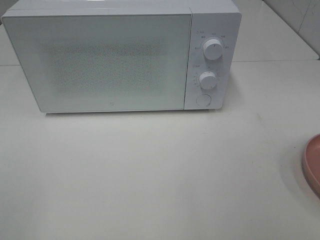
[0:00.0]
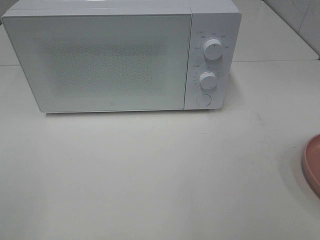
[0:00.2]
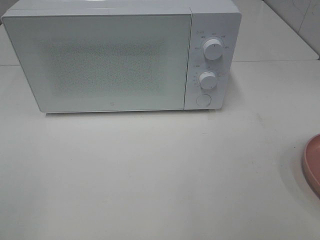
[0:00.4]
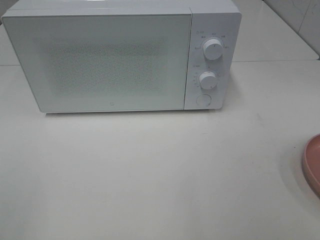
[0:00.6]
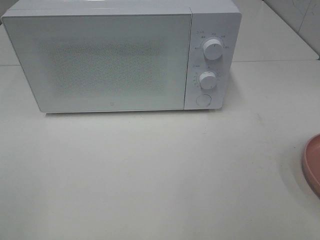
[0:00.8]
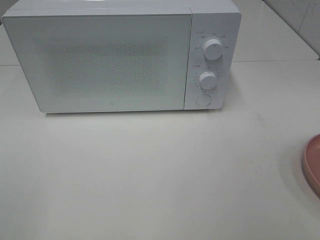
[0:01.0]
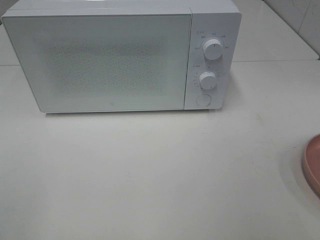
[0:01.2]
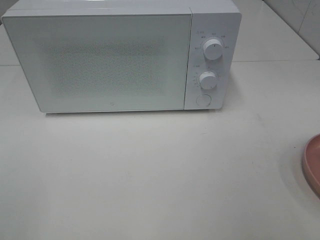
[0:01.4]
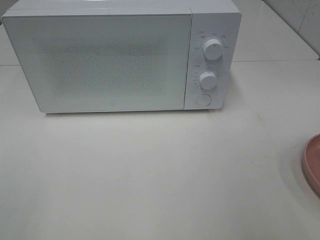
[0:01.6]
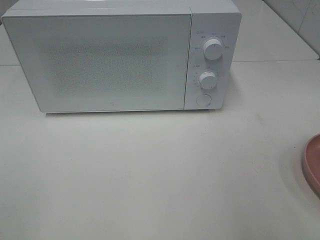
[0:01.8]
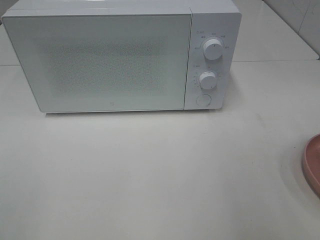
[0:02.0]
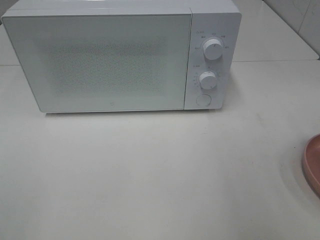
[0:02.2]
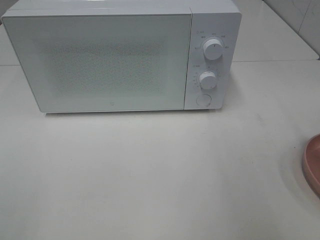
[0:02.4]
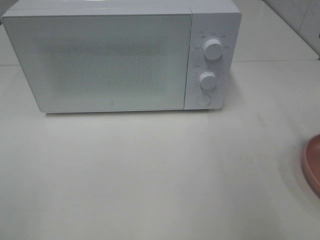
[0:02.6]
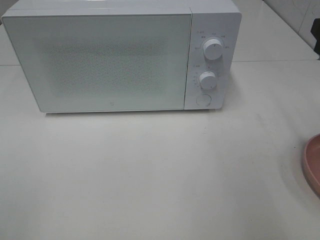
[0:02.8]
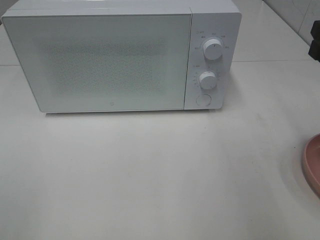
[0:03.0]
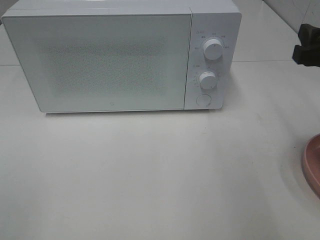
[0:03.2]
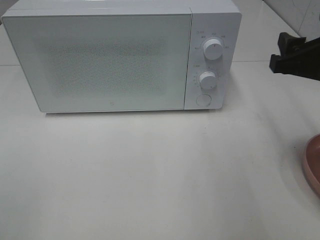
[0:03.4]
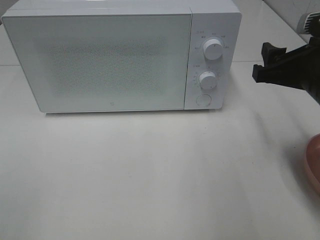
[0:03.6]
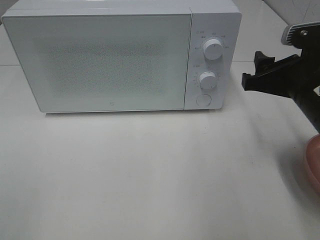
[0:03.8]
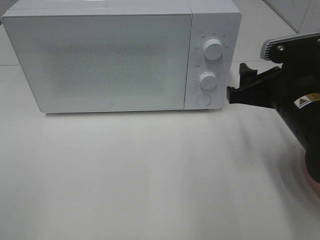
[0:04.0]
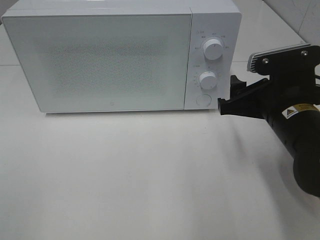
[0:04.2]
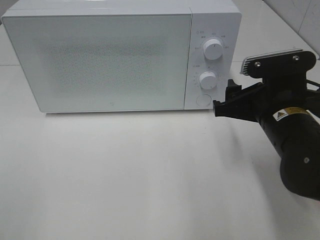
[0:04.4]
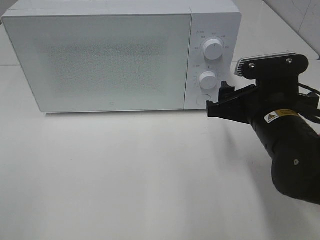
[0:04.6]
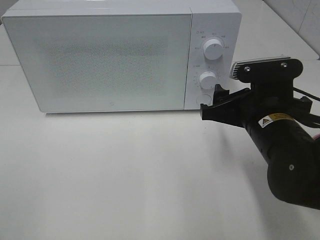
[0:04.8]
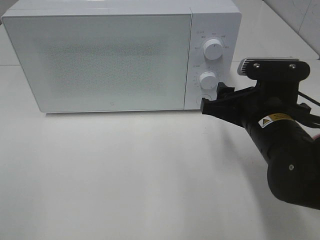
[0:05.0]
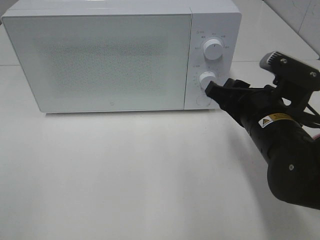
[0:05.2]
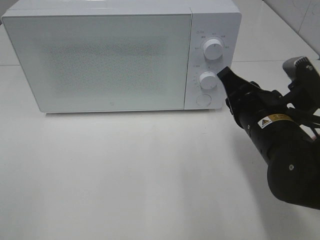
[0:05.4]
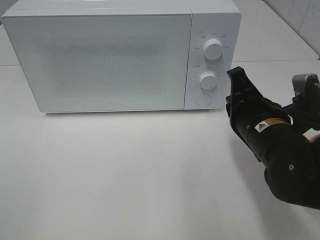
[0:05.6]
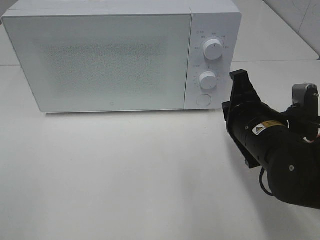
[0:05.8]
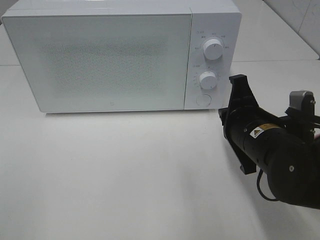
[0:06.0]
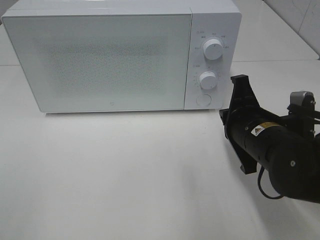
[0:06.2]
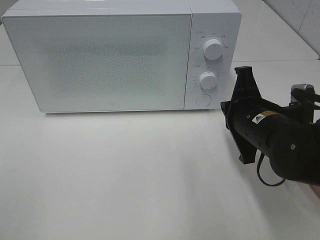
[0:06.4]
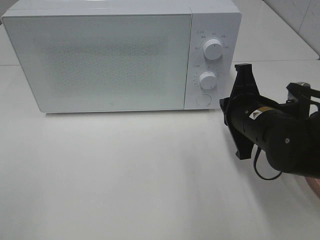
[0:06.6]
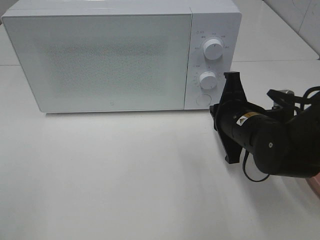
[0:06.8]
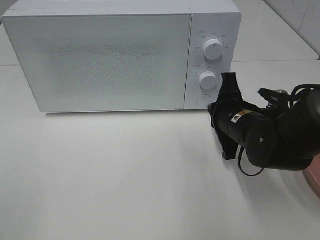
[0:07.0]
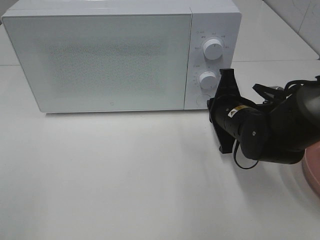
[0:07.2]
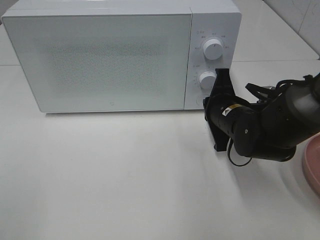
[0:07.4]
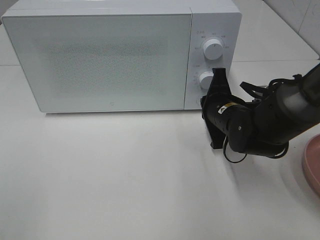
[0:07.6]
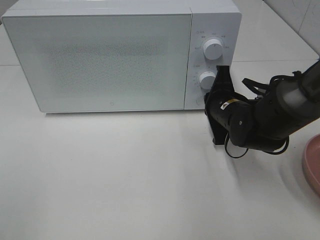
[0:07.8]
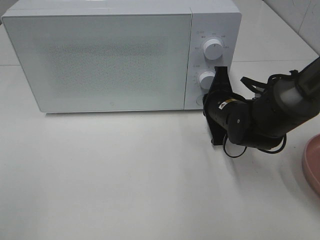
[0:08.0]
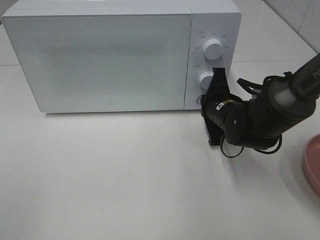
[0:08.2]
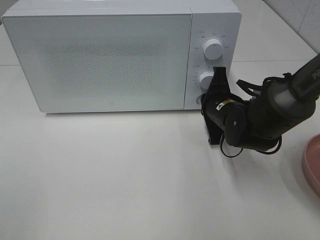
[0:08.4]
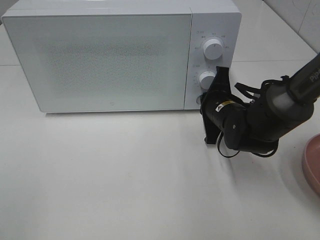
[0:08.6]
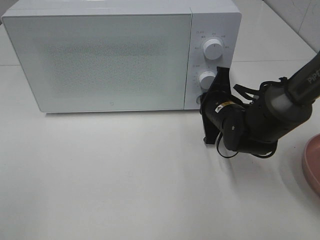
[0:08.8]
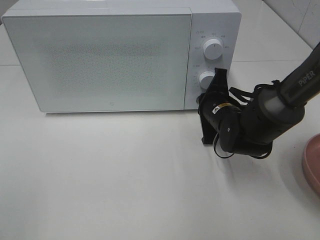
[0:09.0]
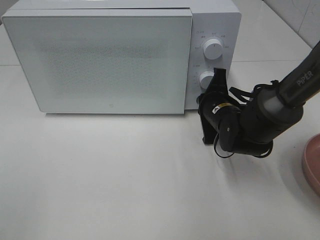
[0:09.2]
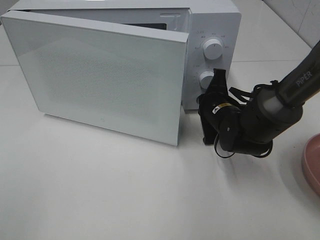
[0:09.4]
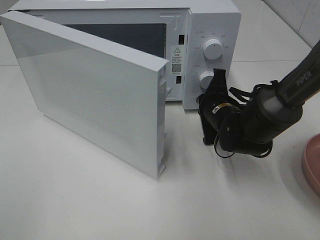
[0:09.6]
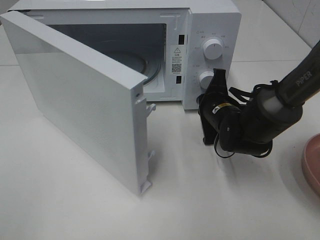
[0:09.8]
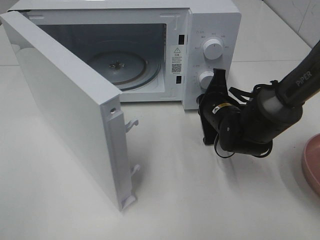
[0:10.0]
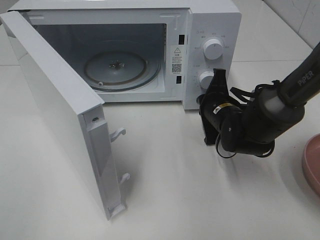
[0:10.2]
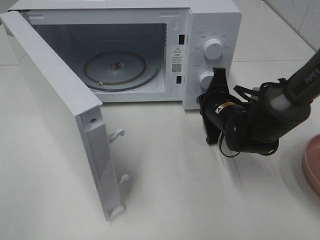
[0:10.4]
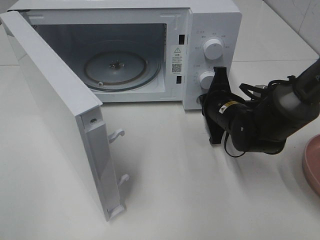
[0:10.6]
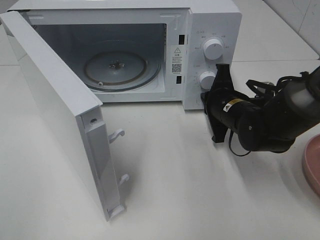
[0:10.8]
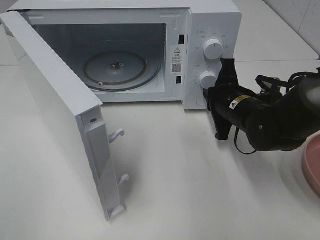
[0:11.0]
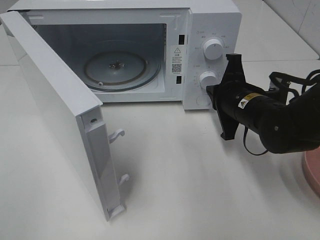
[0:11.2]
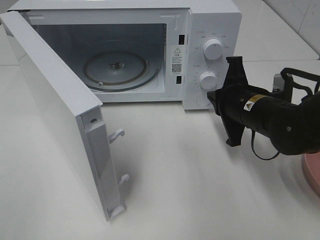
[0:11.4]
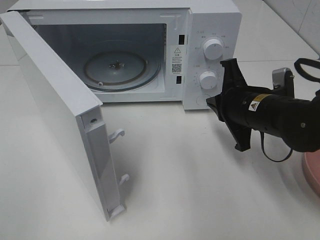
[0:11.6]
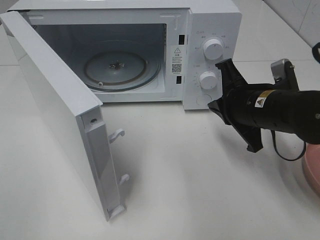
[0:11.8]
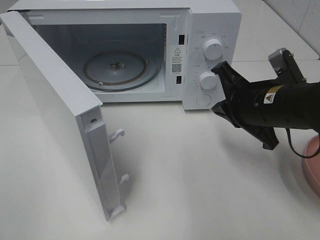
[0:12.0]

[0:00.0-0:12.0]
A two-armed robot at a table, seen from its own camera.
Task of the whole recording: Heat the burger.
Step, 0:00.0 to 0:11.0: Right hand: press the switch.
0:03.0 to 0:04.4: The right gripper goes approximately 15 cm to the left and downward.
0:04.4 to 0:06.0: The right gripper closes up.
0:06.0 to 0:07.6: The right gripper goes roughly 10 cm forward.
0:07.6 to 0:09.0: The grippers make only small movements.
0:10.4 to 0:12.0: The right gripper travels upward and backward by approximately 15 cm.

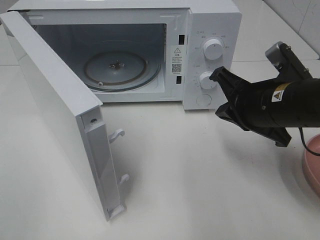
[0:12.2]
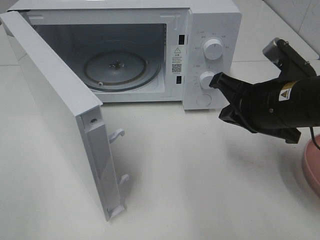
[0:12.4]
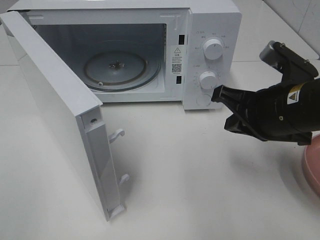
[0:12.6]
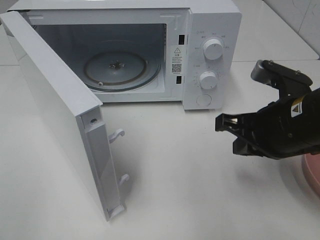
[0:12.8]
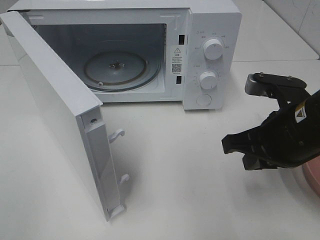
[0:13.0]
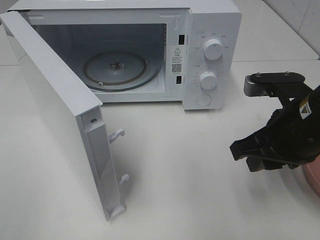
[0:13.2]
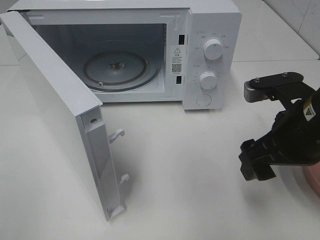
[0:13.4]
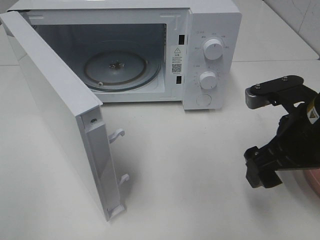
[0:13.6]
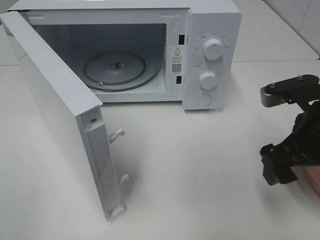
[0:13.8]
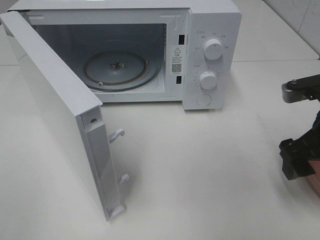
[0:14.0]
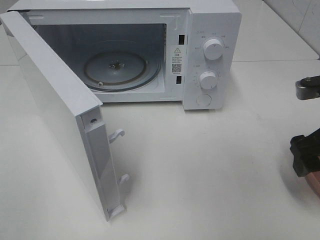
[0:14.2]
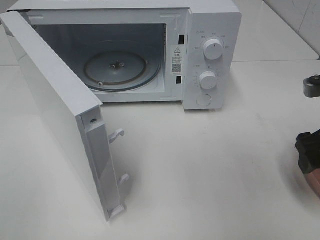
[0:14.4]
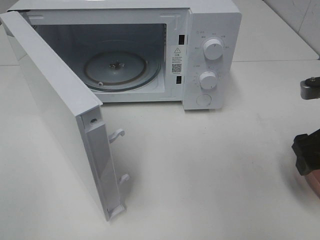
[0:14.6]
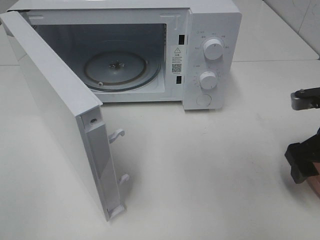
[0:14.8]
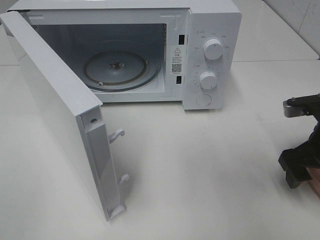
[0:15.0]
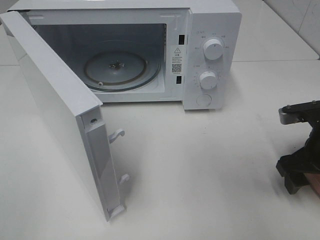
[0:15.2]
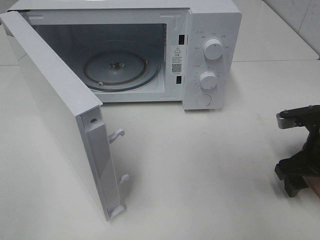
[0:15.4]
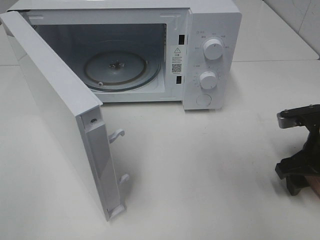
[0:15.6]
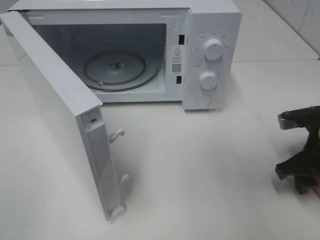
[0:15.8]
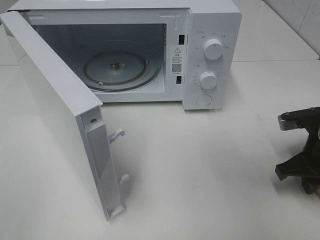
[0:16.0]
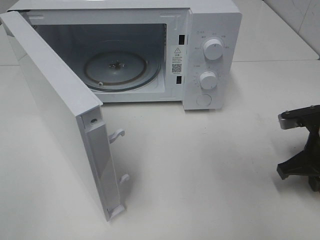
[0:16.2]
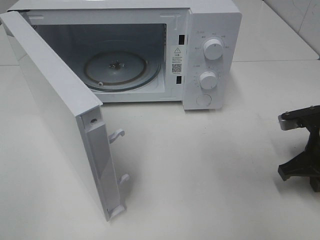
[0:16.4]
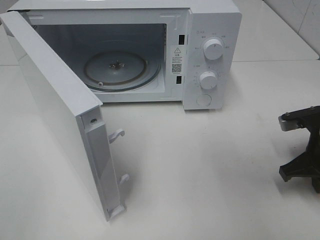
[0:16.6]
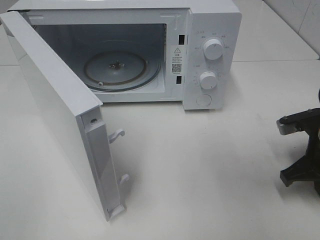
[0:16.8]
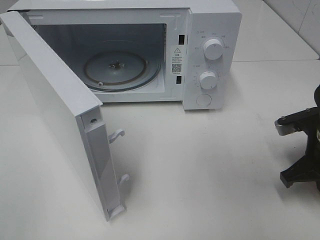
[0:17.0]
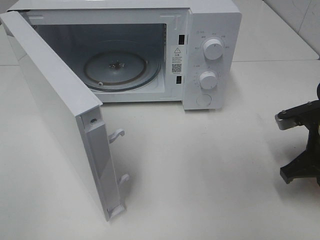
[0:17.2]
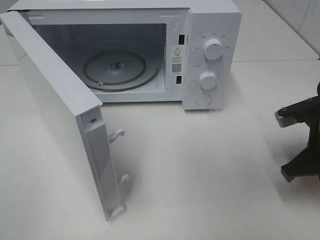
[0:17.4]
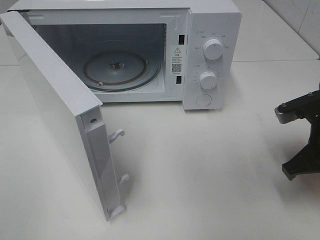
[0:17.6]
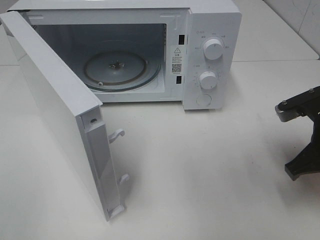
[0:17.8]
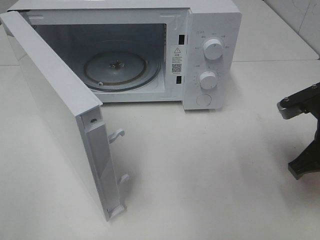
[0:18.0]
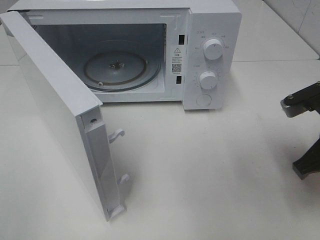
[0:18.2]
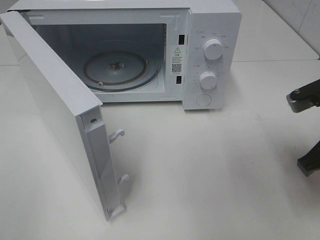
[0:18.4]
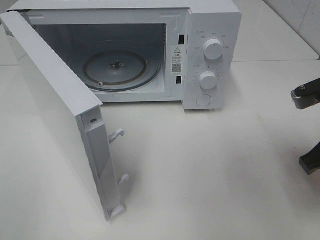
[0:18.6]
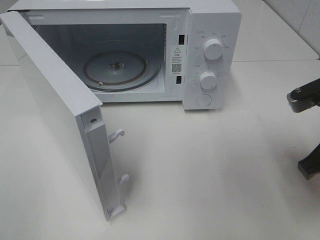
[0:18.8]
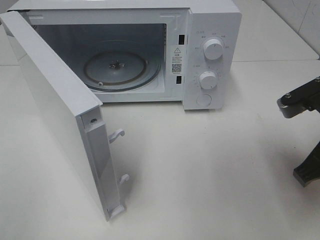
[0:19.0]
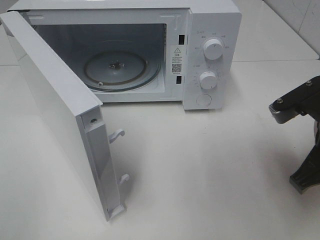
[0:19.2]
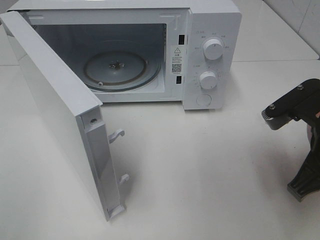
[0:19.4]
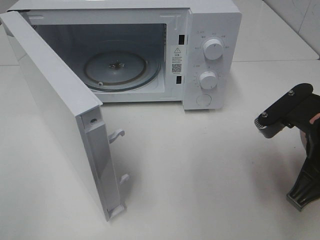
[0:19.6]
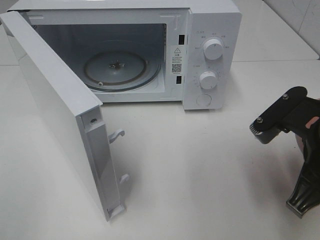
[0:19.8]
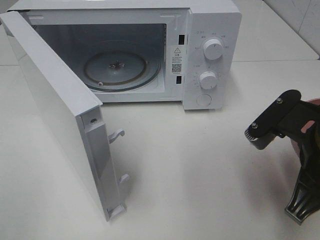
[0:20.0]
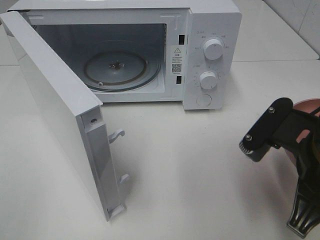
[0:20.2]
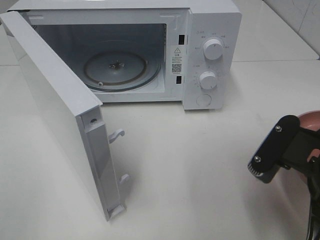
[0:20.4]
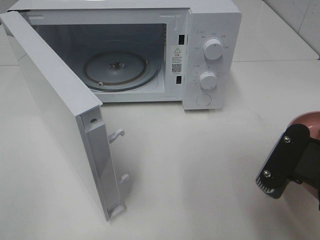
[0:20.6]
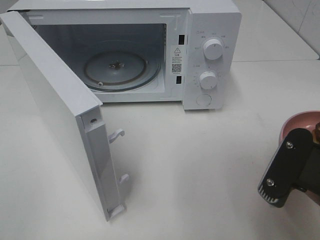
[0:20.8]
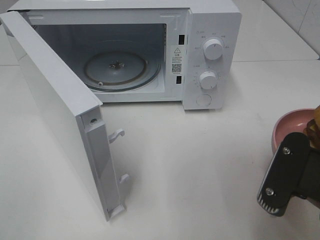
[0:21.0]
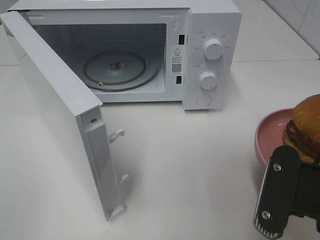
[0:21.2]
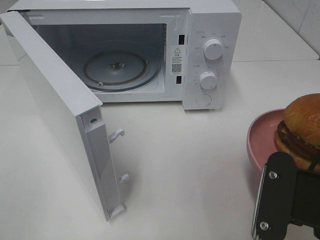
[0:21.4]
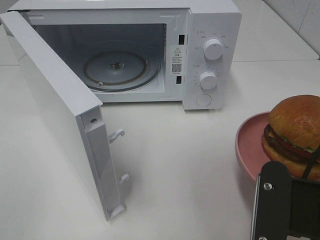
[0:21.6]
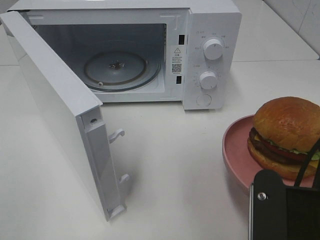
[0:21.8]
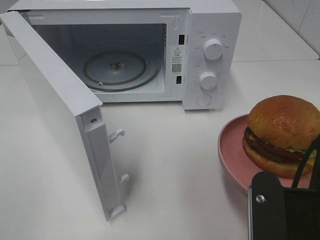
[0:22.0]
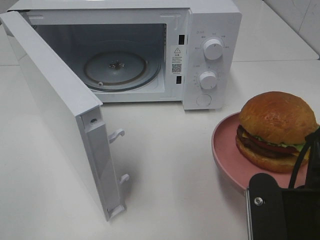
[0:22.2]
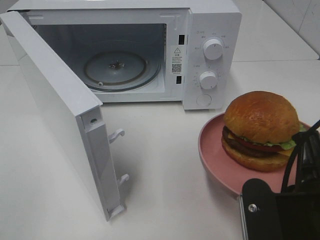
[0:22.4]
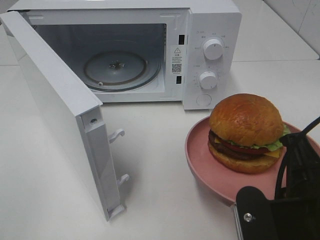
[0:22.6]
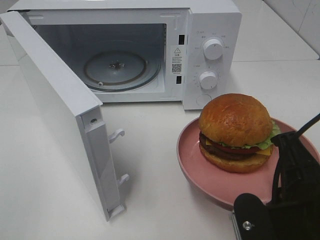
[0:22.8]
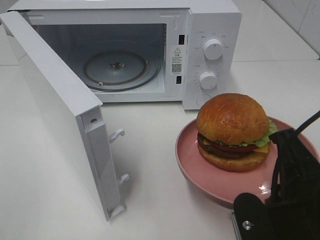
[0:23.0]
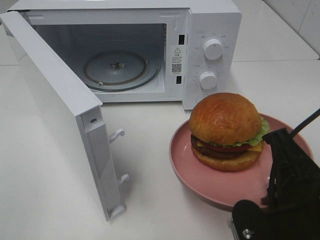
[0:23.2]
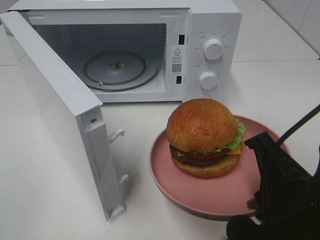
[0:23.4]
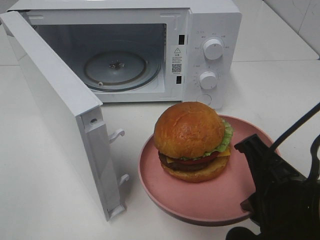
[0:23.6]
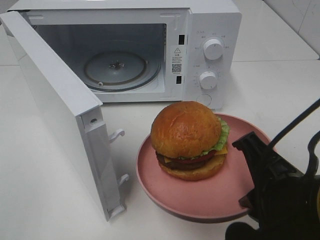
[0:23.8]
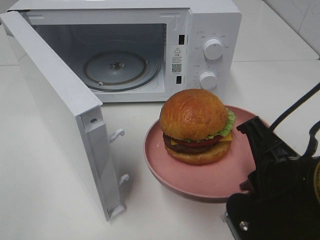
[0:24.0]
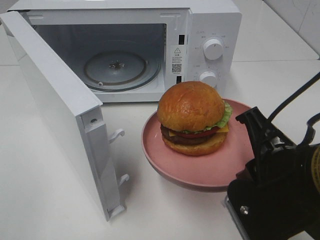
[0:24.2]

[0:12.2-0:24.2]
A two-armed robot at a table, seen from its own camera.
Task of the whole recording: Heat the burger.
Step, 0:12.2 to 0:17.0: Right hand: grab the plate with the hamburger.
0:12.2 to 0:13.8: The right gripper heads to the right, covering some 5 cm, and opens up.
0:13.8 to 0:15.2: The right gripper heads downward, covering about 5 cm.
0:15.2 to 0:16.6: The right gripper closes its fingers.
0:16.6 to 0:18.2: The right gripper goes roughly 10 cm upward.
0:18.2 to 0:19.8: The right gripper moves to the left, about 5 cm.
0:19.8 to 0:21.2: The right gripper goes some 10 cm backward.
